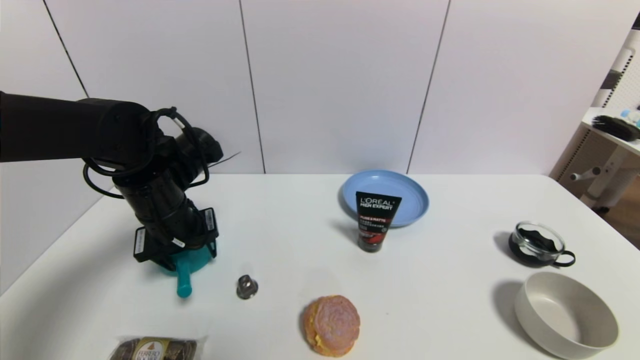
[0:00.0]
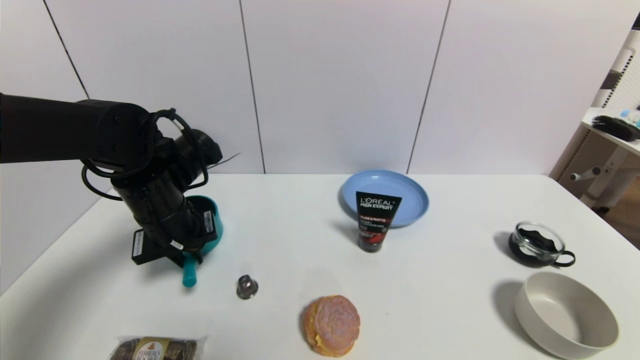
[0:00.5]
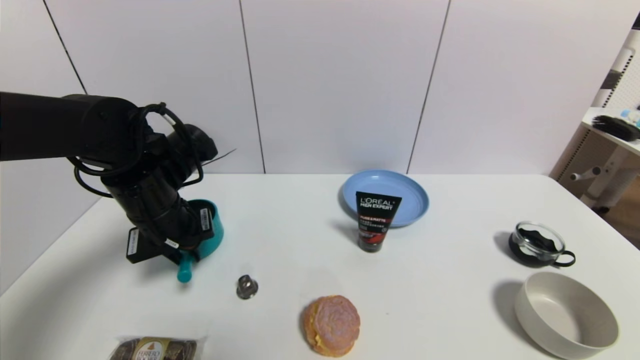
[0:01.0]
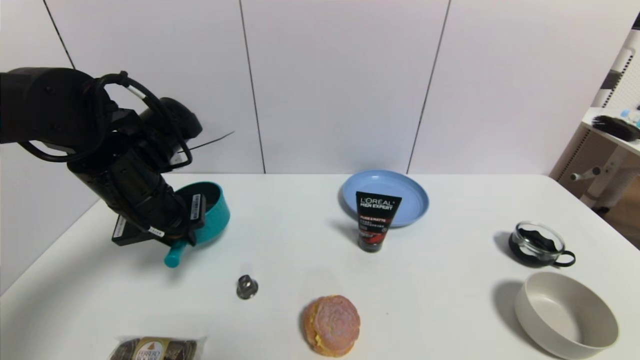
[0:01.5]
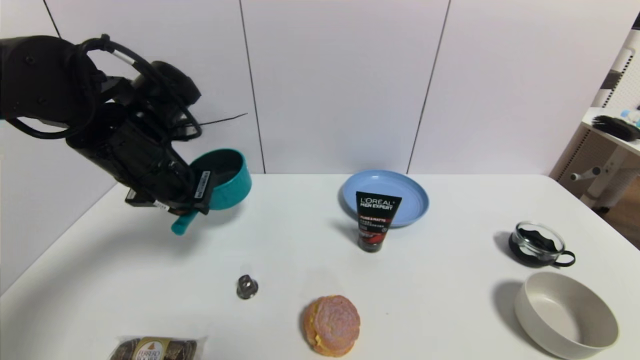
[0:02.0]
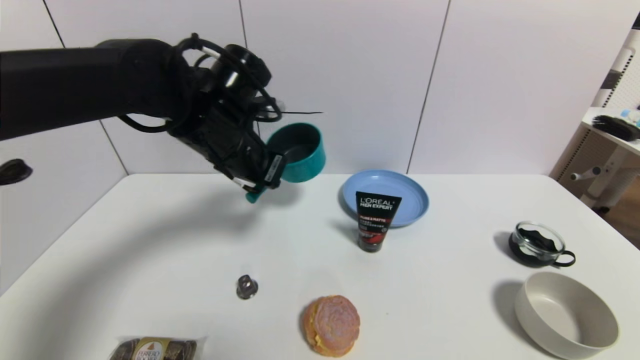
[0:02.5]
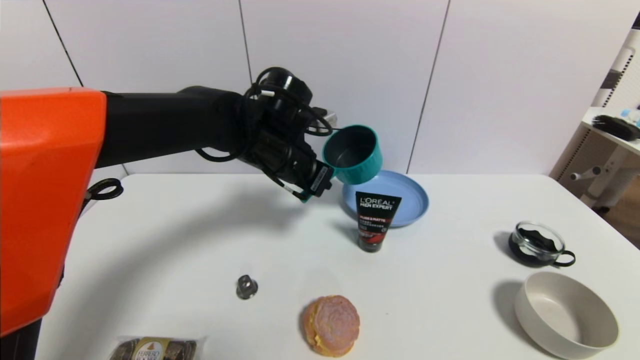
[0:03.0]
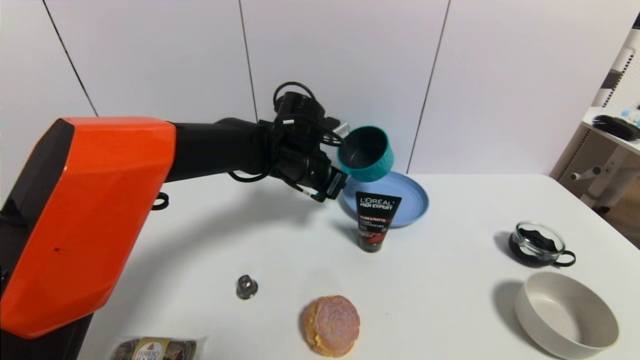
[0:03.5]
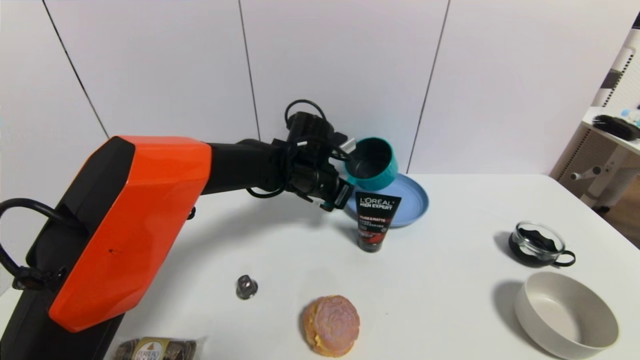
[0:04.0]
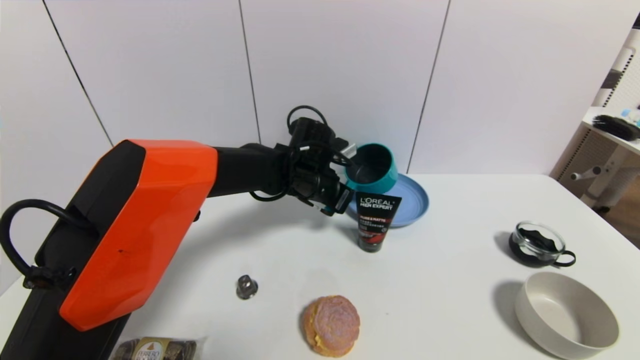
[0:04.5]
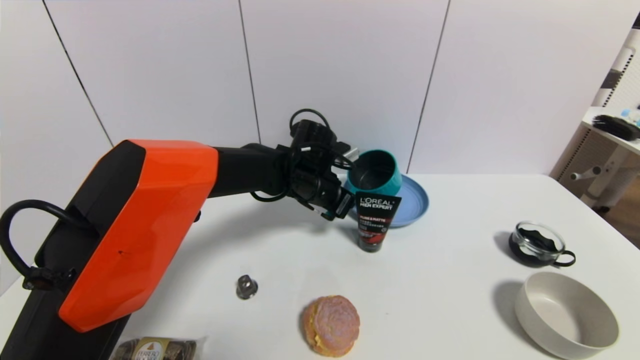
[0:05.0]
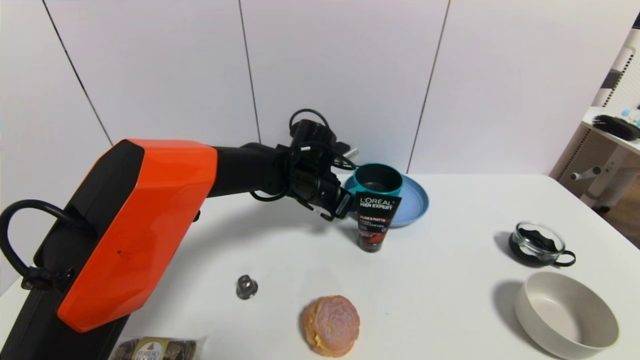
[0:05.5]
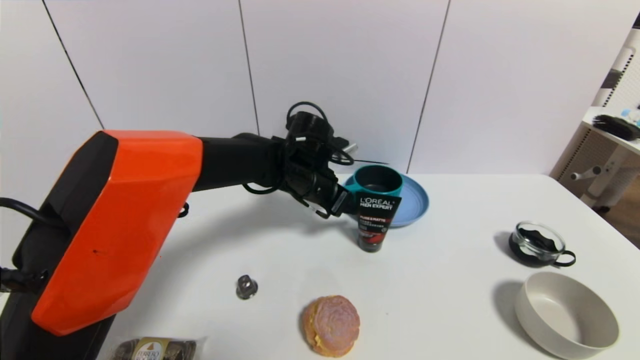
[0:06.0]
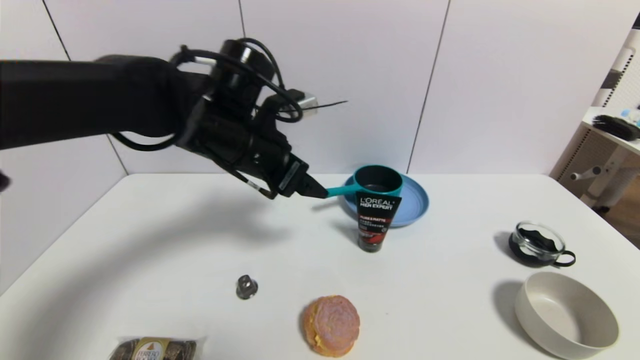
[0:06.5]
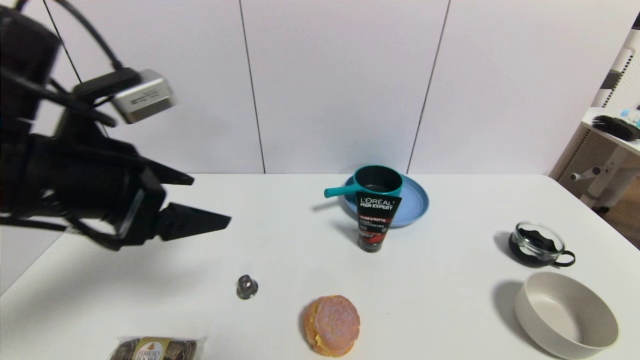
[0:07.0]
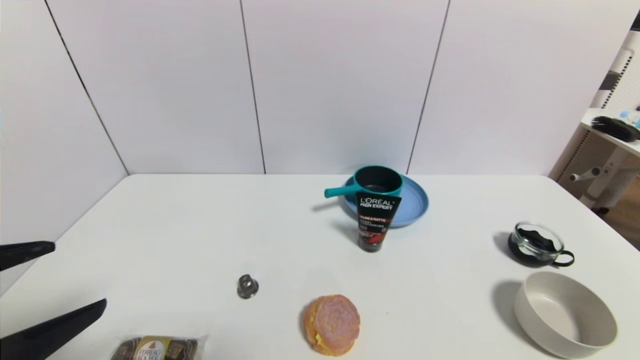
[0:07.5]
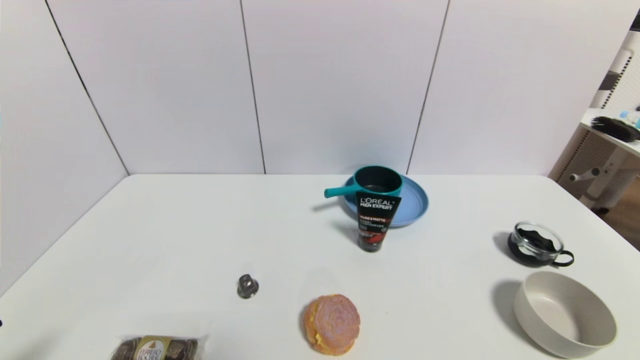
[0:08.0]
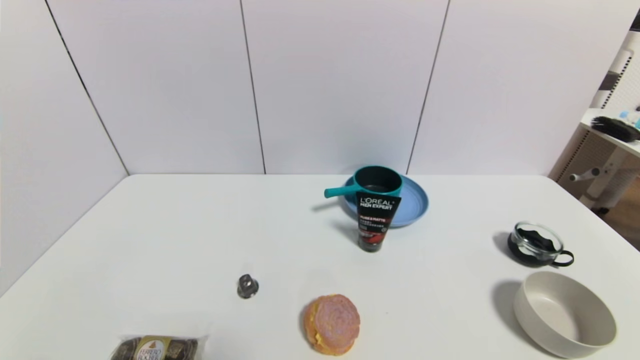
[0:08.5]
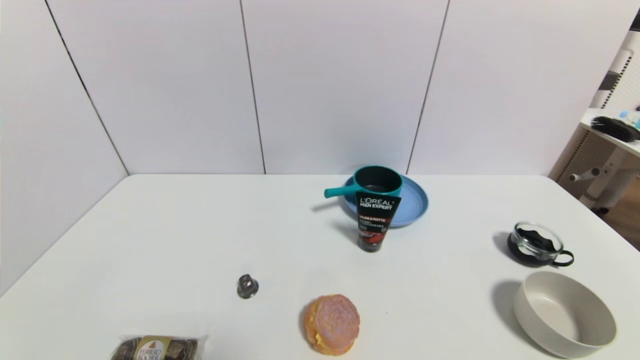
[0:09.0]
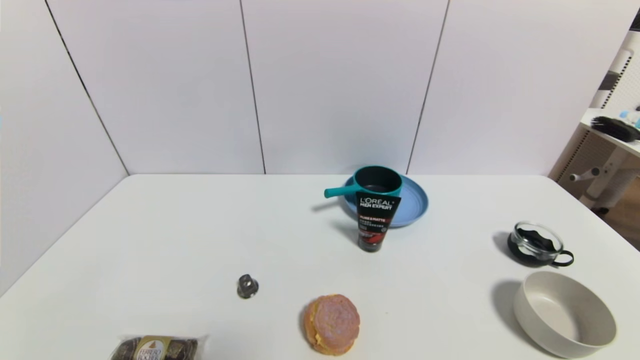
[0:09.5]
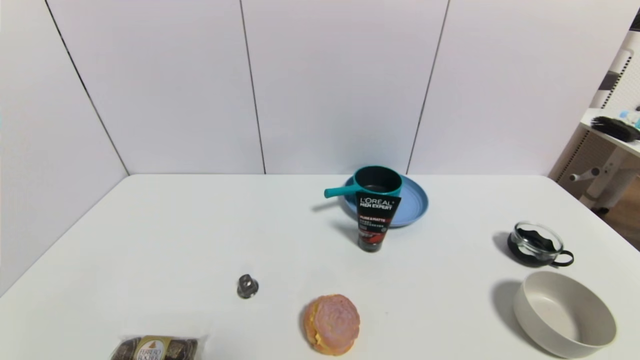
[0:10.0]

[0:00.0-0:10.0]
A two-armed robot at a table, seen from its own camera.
Task of the whole recording: use a gripper to pick the target object and place on the blue plate.
Step, 0:00.5 to 0:06.0: Place the blue pot on the blue plate with the left gripper.
0:00.0 to 0:02.0: The left gripper moves upward, roughly 5 cm, and closes.
0:02.0 to 0:04.0: The left gripper goes roughly 25 cm to the right, forward and downward.
0:04.0 to 0:06.0: The left gripper opens up.
0:06.0 to 0:08.0: The left gripper is displaced backward and to the left by some 50 cm.

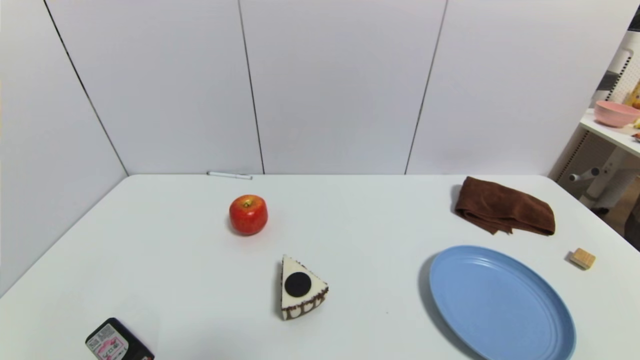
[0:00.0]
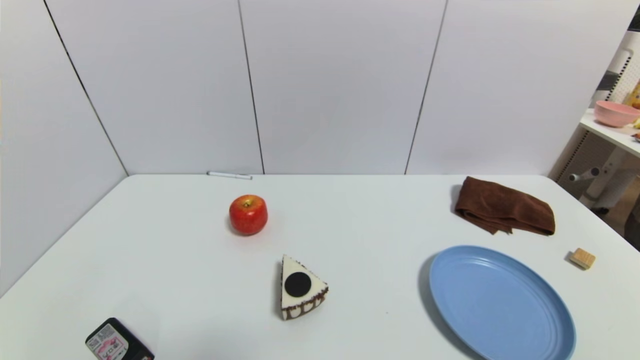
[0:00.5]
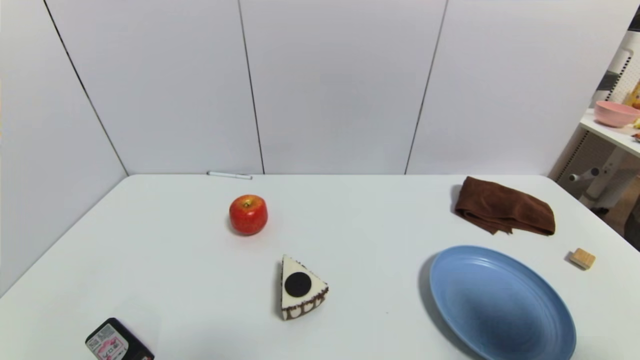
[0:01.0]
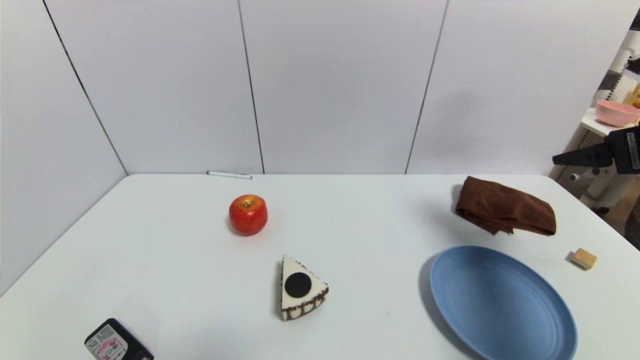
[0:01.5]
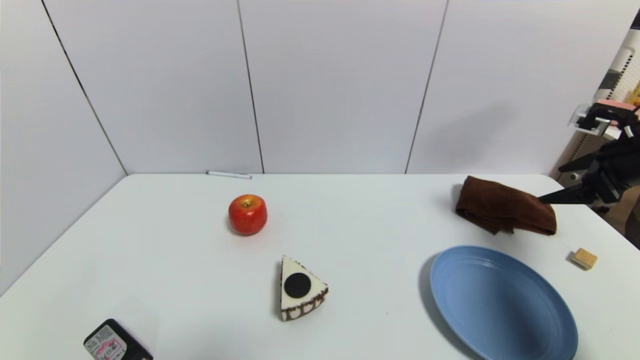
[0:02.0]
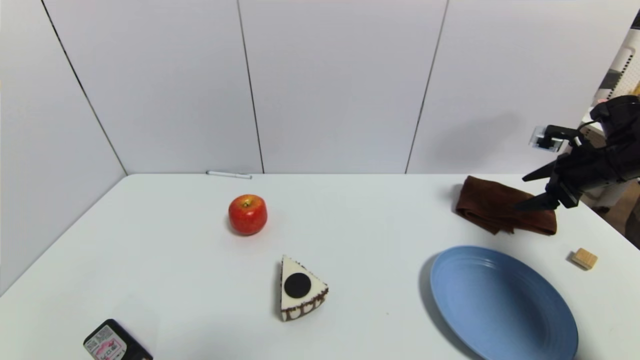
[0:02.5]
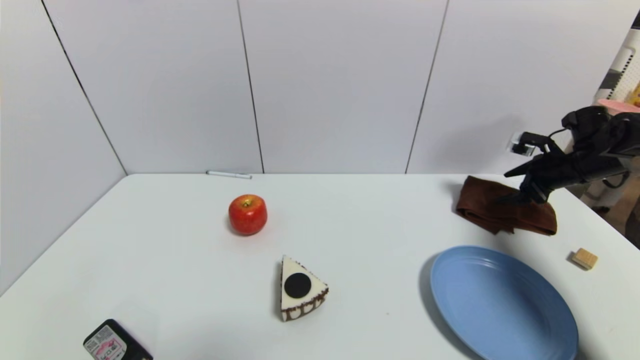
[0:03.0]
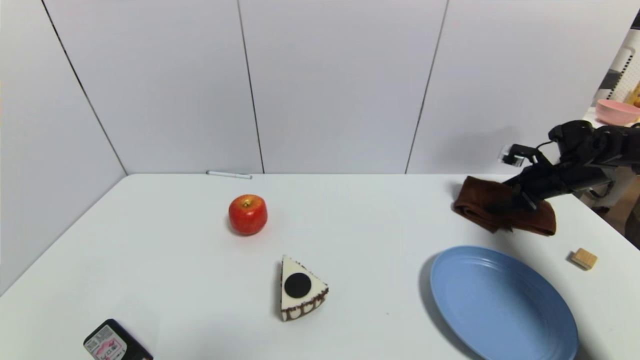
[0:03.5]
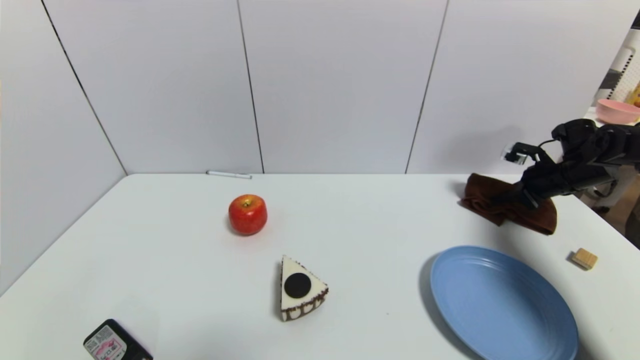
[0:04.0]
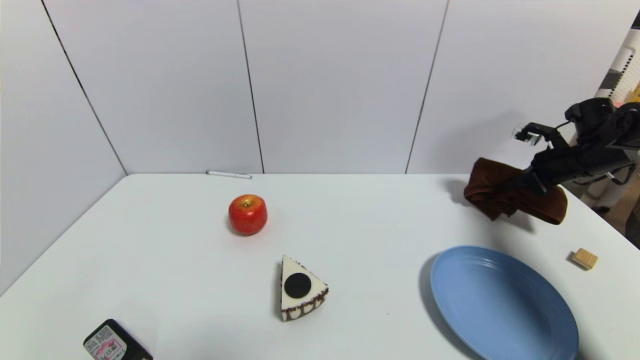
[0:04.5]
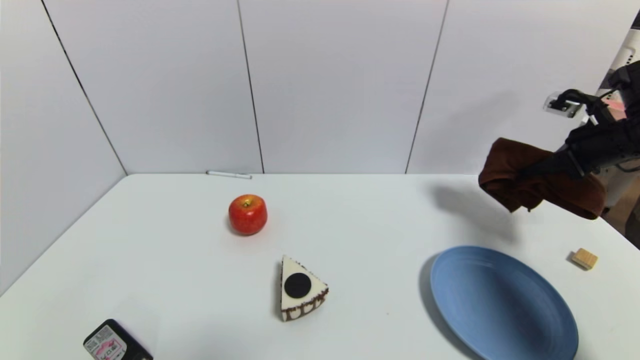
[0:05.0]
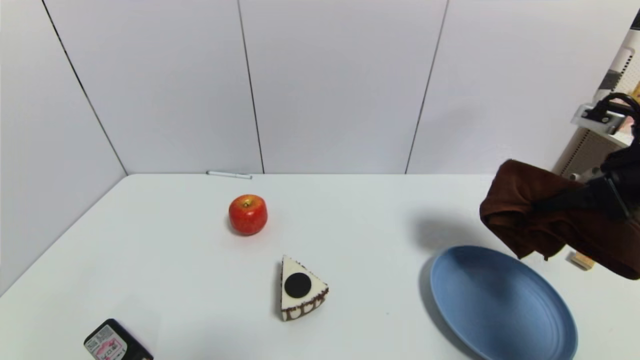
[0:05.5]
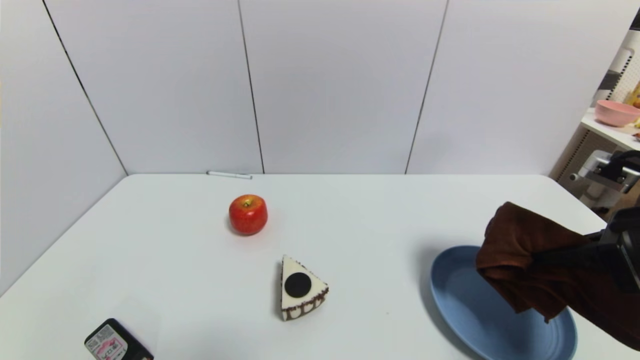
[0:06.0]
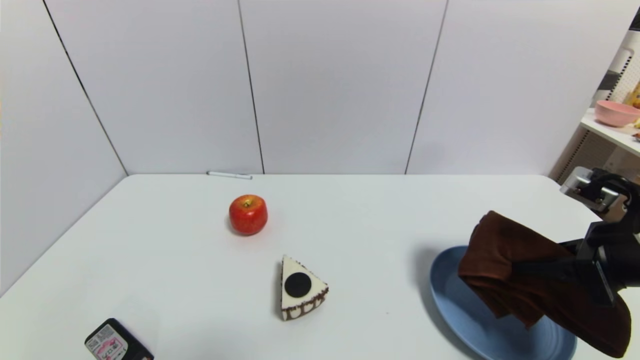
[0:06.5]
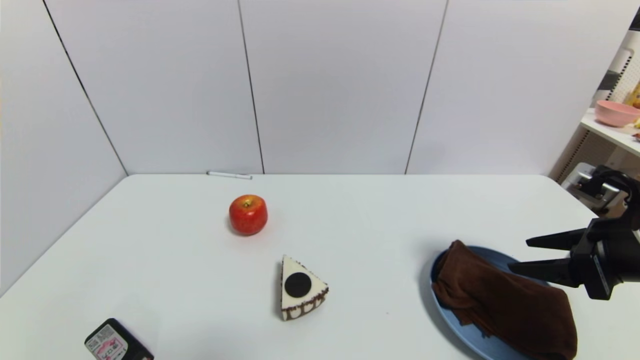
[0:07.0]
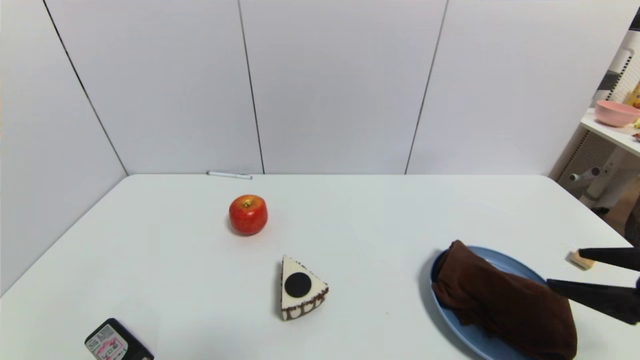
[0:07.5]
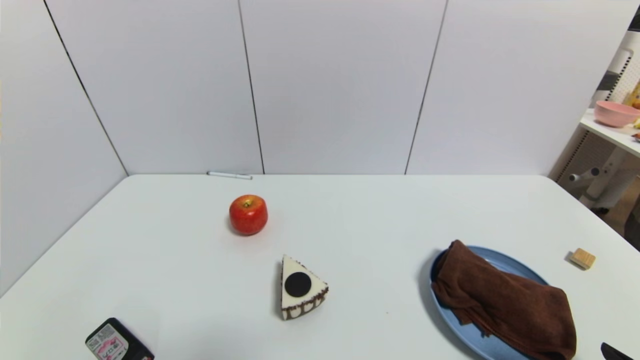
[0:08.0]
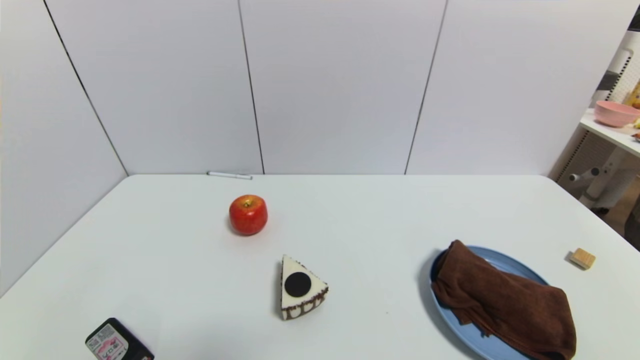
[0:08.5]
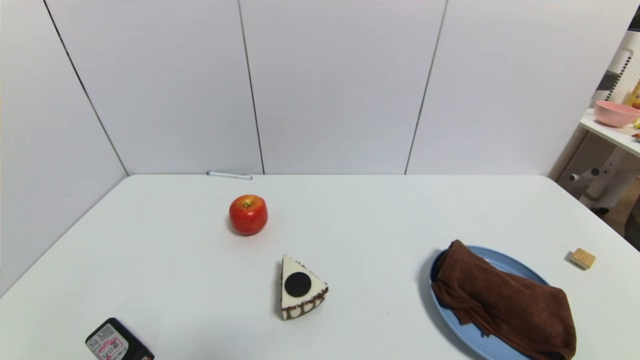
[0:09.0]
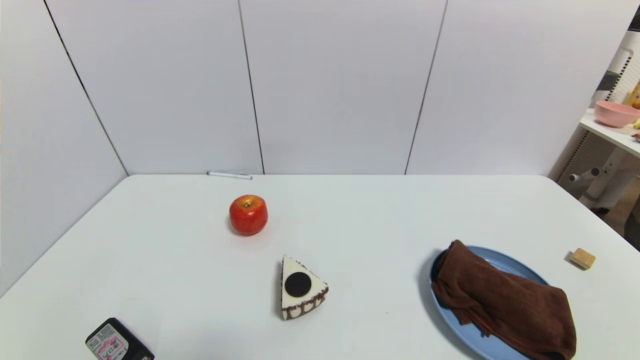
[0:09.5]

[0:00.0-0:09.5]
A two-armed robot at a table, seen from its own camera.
Task of the whole recording: use a gripper to pick the target object and place on the blue plate.
Step, 0:00.0 to 0:04.0: Grasp the brown towel with the right gripper.
Step, 0:04.5 to 0:07.5: Place the brown towel on the blue plate with the right gripper.
0:00.0 to 0:02.0: The right gripper goes some 35 cm forward and upward.
0:02.0 to 0:04.0: The right gripper moves forward and downward, about 15 cm, and closes.
0:04.0 to 0:05.5: The right gripper shifts roughly 25 cm backward, upward and to the left.
0:05.5 to 0:07.5: The right gripper goes some 10 cm backward, and opens.
0:07.5 to 0:09.5: The right gripper shifts about 20 cm backward and downward.
